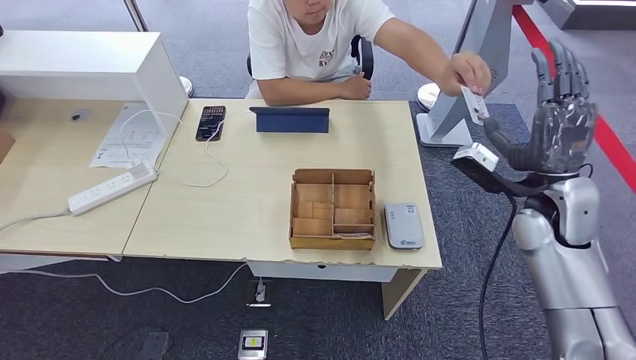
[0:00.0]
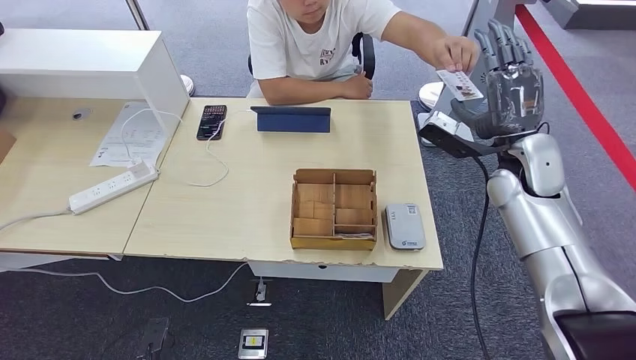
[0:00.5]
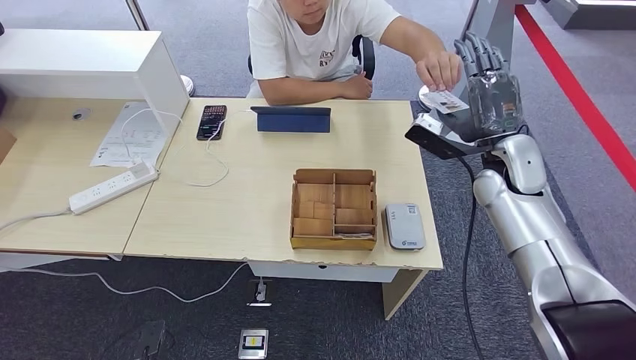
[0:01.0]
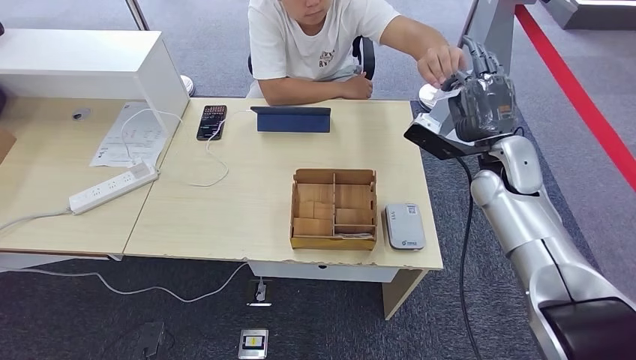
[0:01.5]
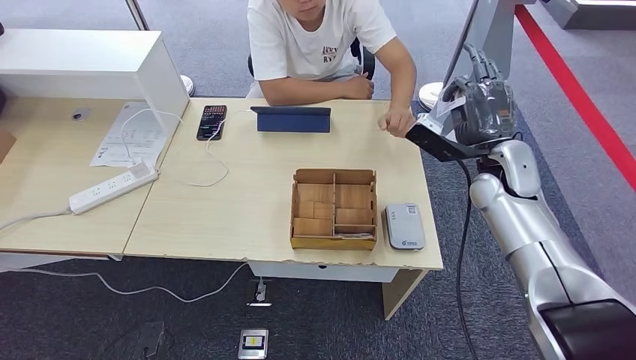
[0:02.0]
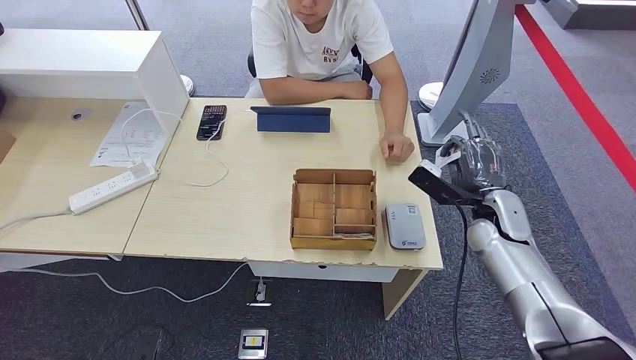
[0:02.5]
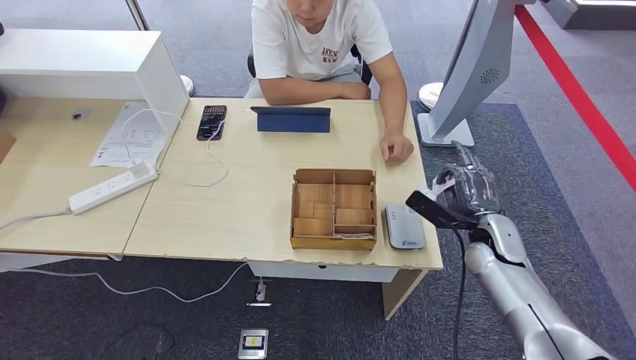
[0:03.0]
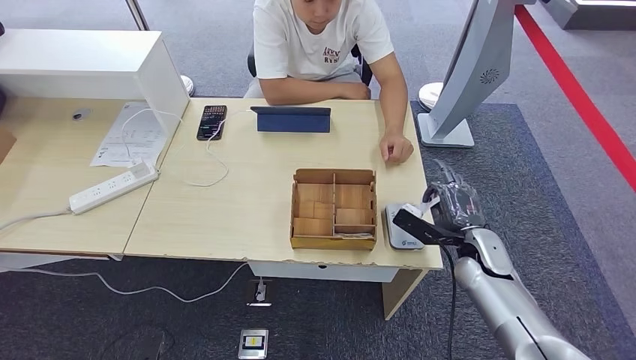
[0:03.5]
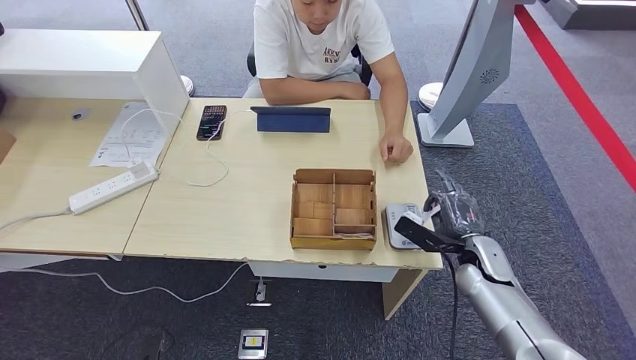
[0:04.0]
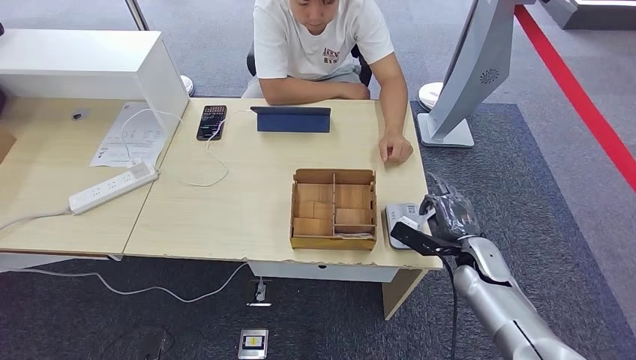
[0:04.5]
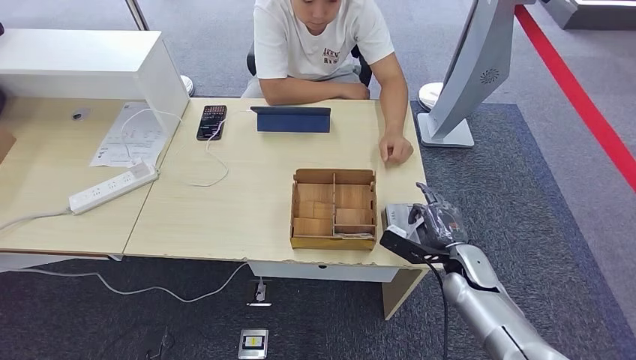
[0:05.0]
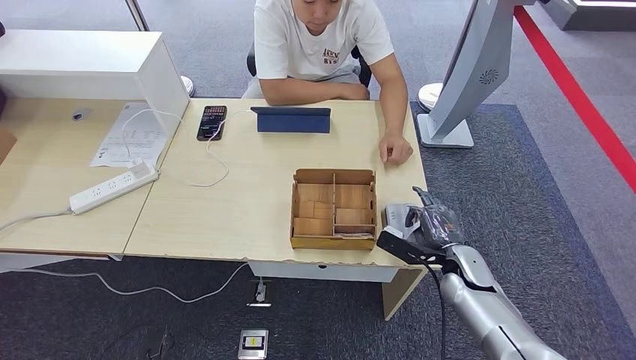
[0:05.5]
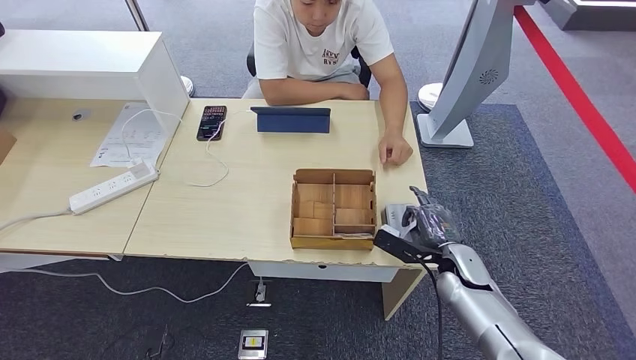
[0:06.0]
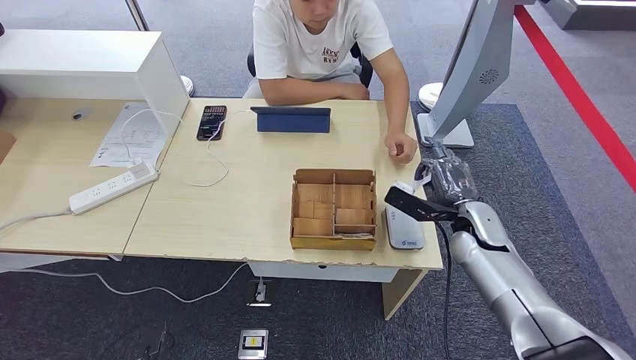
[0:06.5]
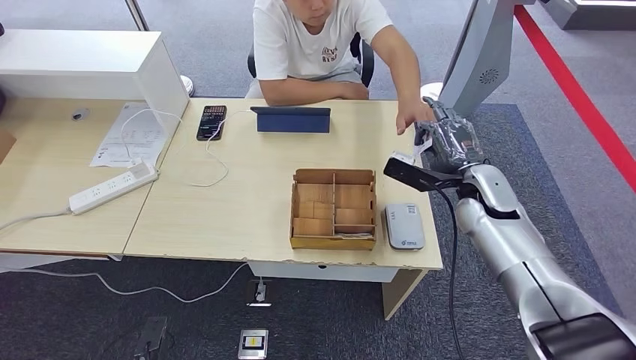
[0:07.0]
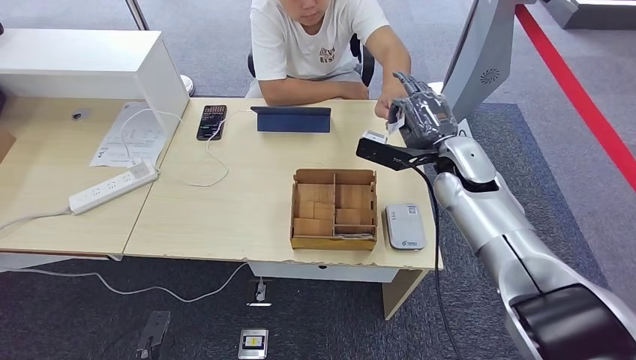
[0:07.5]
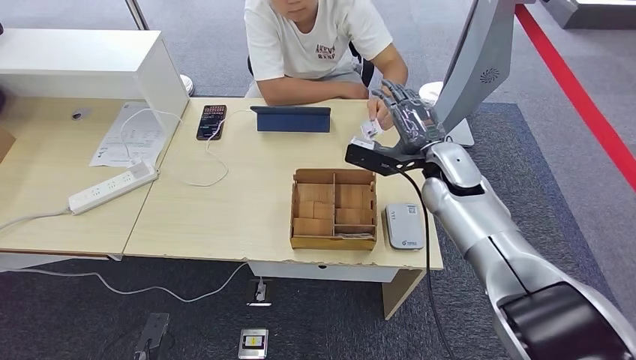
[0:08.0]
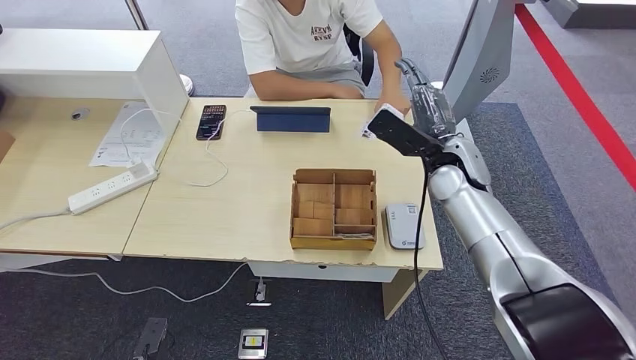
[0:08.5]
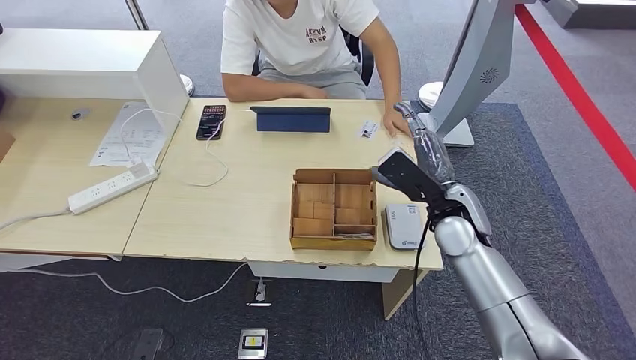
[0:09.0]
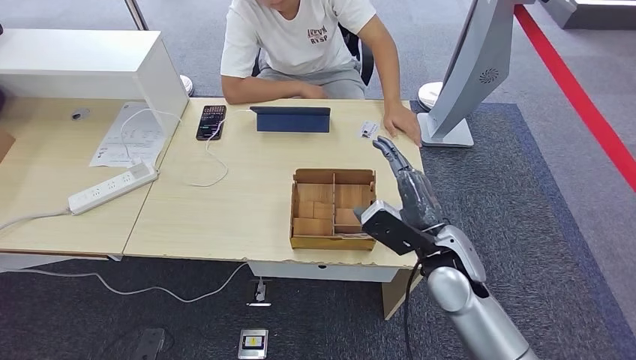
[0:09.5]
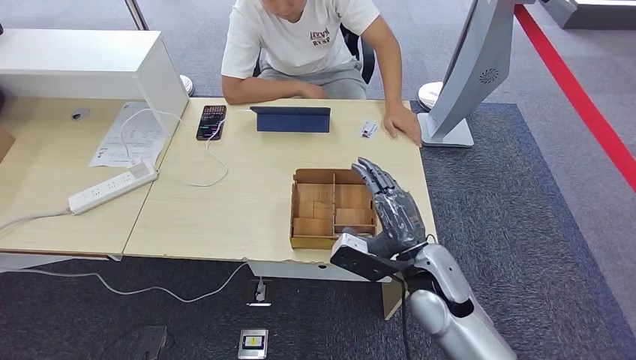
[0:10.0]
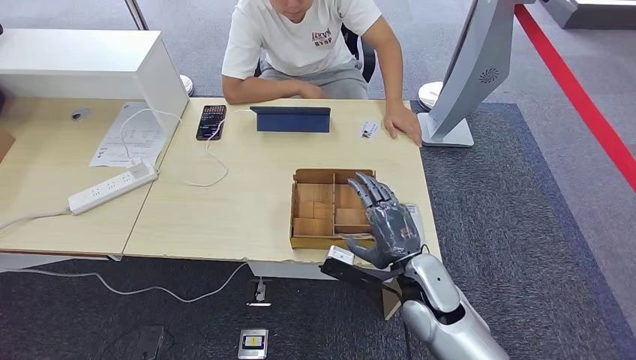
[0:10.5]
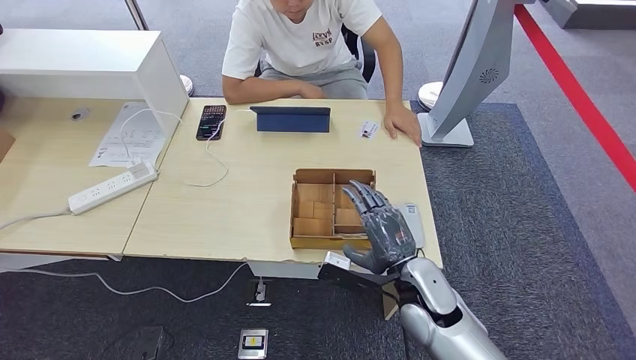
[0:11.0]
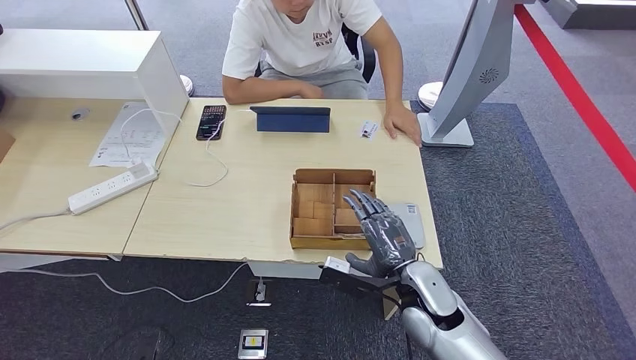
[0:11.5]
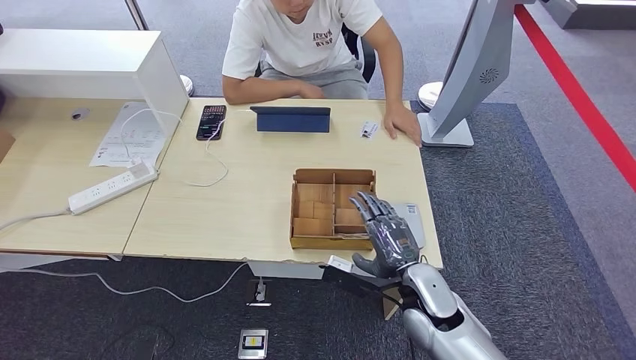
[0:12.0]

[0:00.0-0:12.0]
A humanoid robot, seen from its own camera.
Step, 0:03.0 to 0:05.0: Place the ID card on the card reader.
Step, 0:06.0 to 0:08.0: Hand the ID card to the person.
0:00.0 to 0:02.0: The right hand shifts about 5 cm forward.
0:02.0 to 0:04.0: The right hand is displaced downward and backward by approximately 20 cm.
0:04.0 to 0:06.0: There are only small adjustments of the hands.
0:06.0 to 0:08.0: The right hand goes roughly 20 cm upward and forward.
0:08.0 to 0:10.0: The right hand moves backward and downward, roughly 15 cm.
0:10.0 to 0:12.0: The right hand shifts about 5 cm downward.

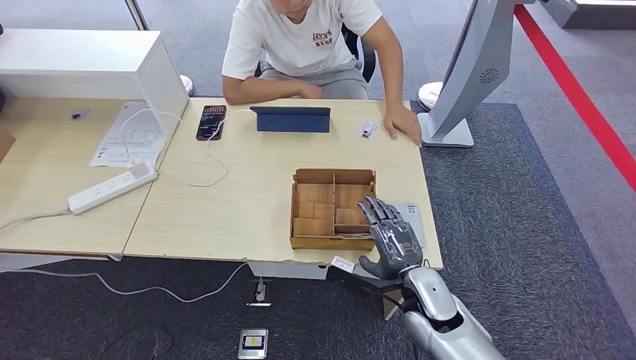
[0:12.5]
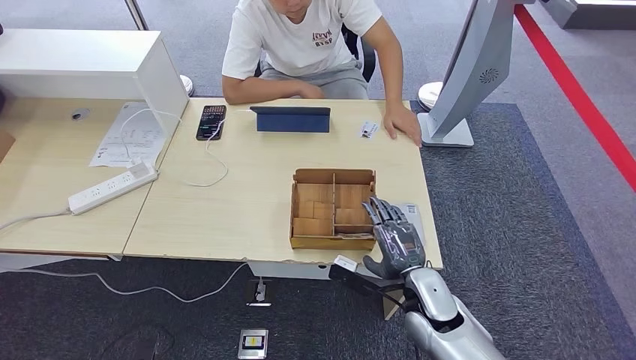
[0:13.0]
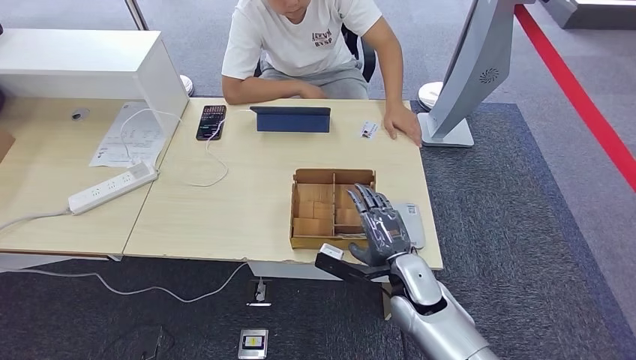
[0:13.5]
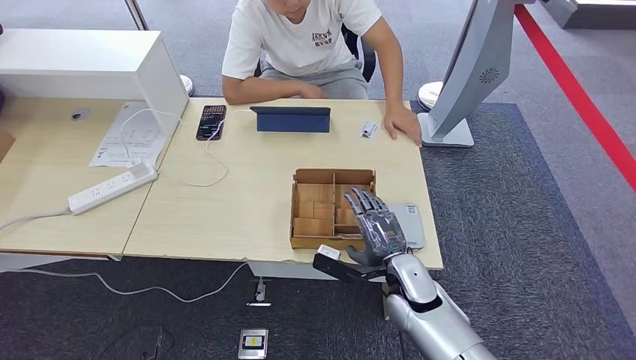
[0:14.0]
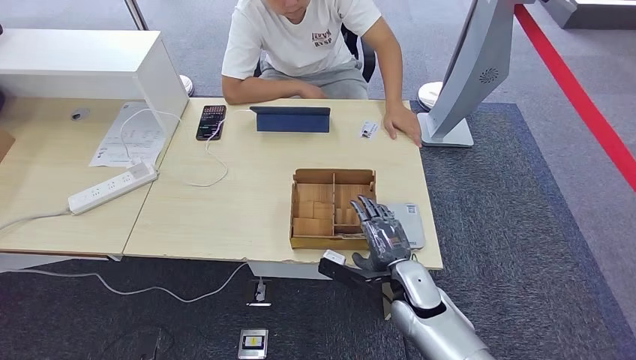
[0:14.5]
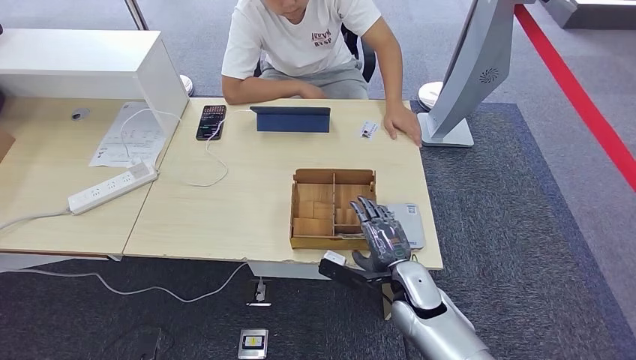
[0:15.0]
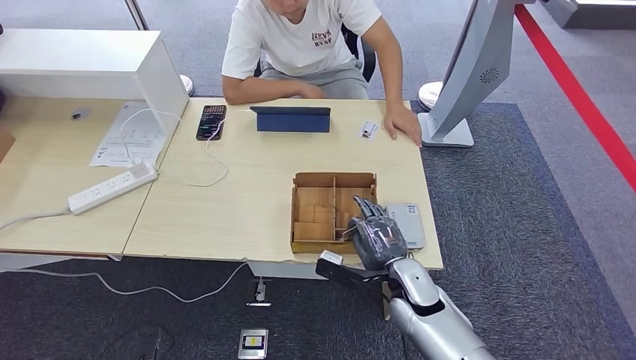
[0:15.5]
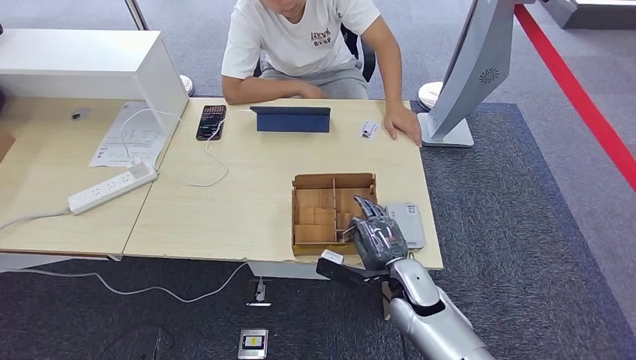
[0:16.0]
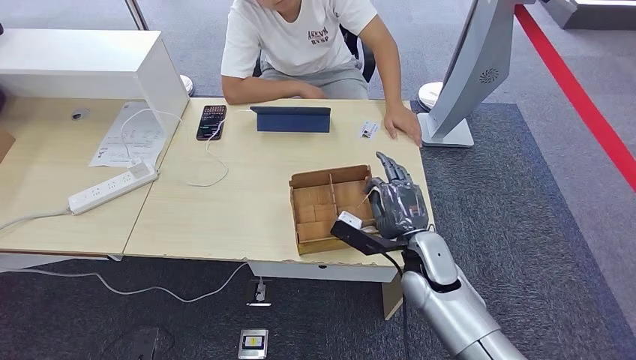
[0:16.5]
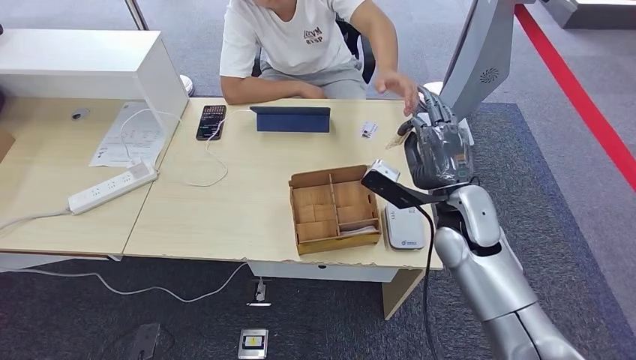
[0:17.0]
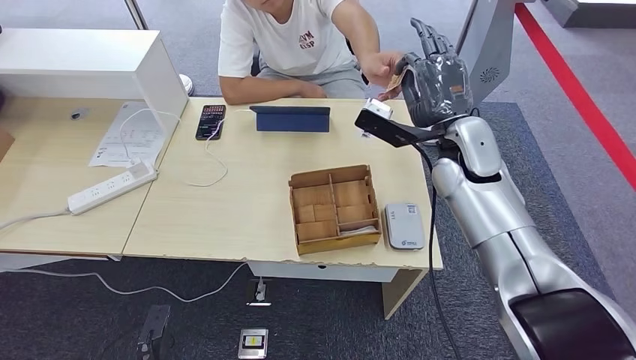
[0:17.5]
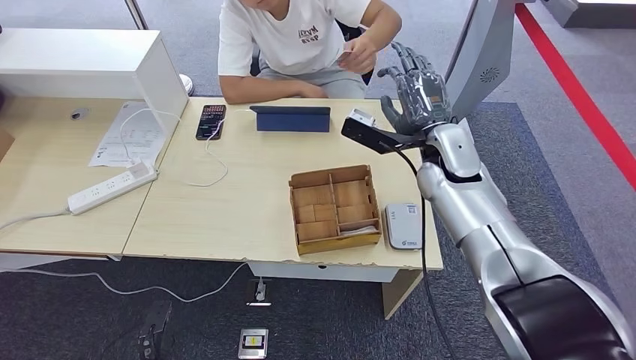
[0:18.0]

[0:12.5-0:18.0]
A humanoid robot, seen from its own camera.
Step, 0:12.5 to 0:16.0: Pick up the room key from the key card box.
Step, 0:16.5 to 0:17.0: Hand the room key to the person.
0:12.5 to 0:14.5: There are only small adjustments of the hands.
0:14.5 to 0:16.0: Both hands stay put.
0:16.0 to 0:18.0: The left hand moves forward, roughly 5 cm. The right hand is displaced upward and forward by approximately 25 cm.
